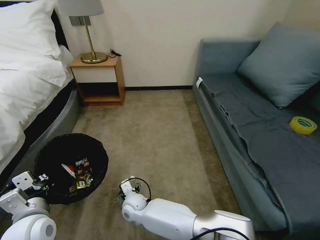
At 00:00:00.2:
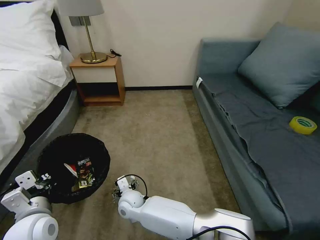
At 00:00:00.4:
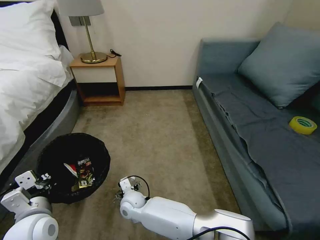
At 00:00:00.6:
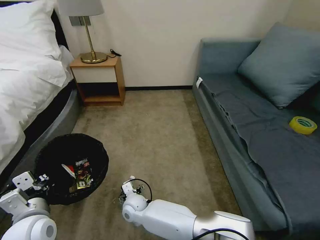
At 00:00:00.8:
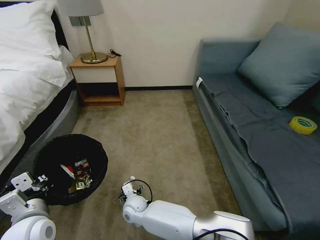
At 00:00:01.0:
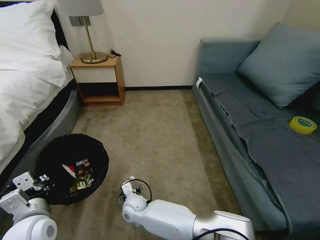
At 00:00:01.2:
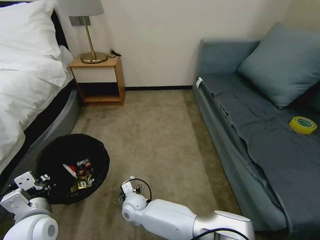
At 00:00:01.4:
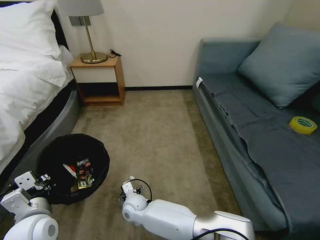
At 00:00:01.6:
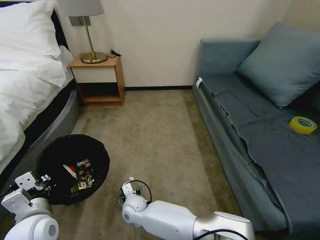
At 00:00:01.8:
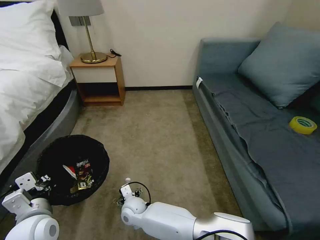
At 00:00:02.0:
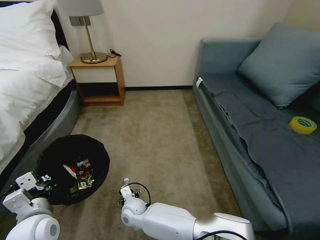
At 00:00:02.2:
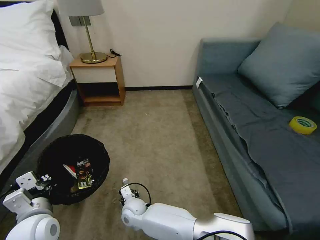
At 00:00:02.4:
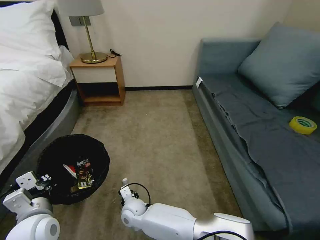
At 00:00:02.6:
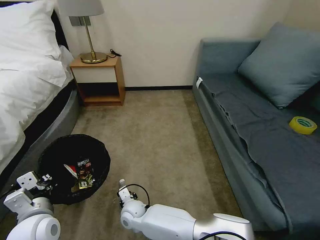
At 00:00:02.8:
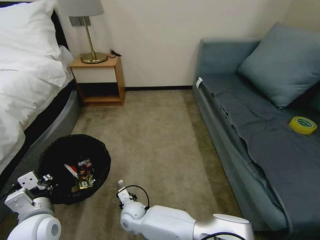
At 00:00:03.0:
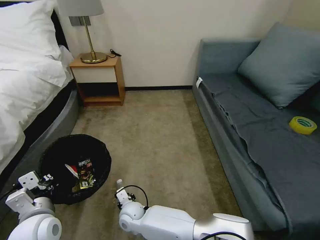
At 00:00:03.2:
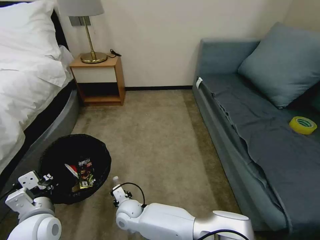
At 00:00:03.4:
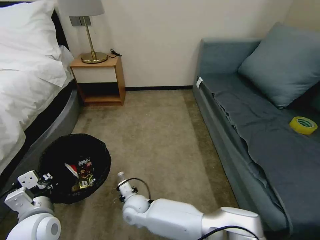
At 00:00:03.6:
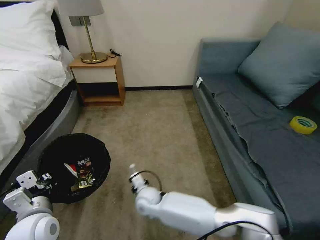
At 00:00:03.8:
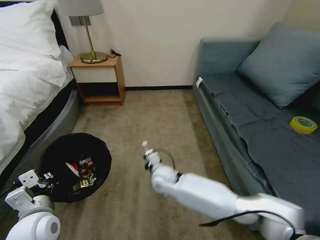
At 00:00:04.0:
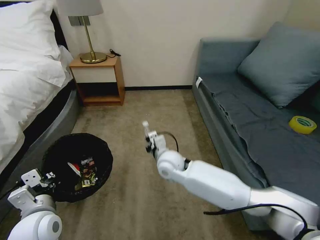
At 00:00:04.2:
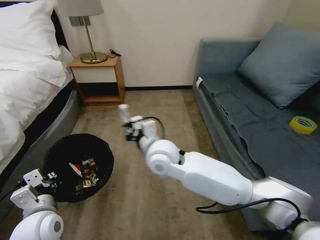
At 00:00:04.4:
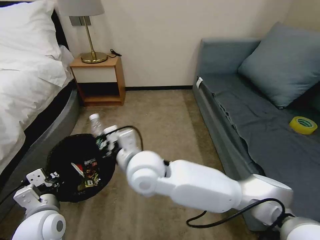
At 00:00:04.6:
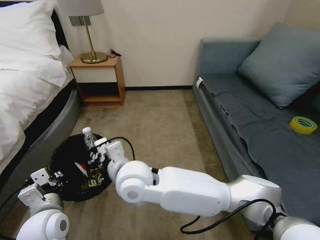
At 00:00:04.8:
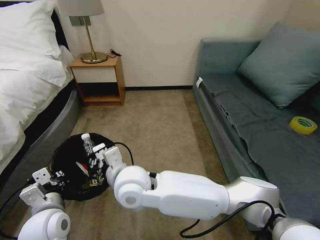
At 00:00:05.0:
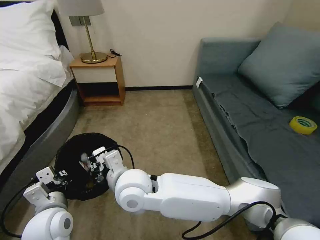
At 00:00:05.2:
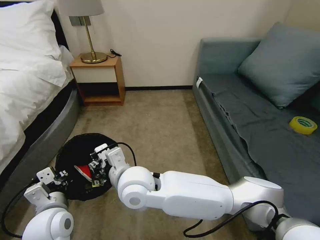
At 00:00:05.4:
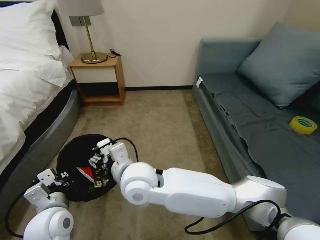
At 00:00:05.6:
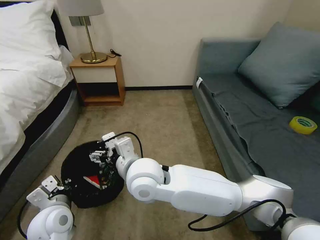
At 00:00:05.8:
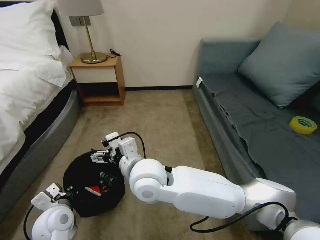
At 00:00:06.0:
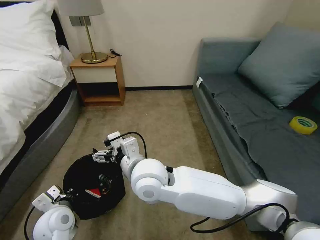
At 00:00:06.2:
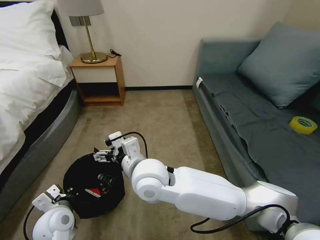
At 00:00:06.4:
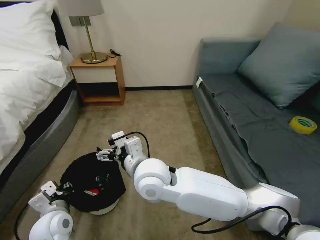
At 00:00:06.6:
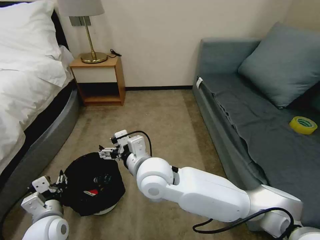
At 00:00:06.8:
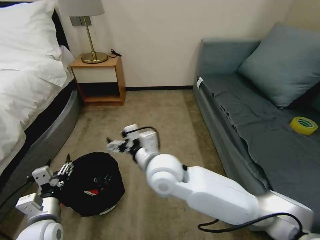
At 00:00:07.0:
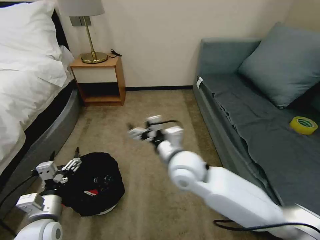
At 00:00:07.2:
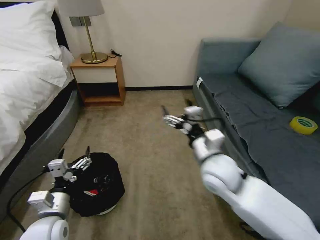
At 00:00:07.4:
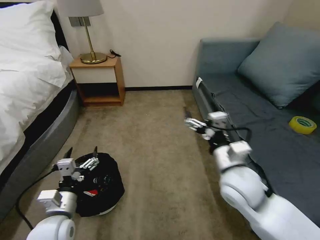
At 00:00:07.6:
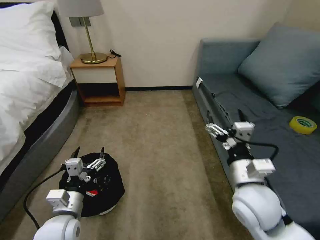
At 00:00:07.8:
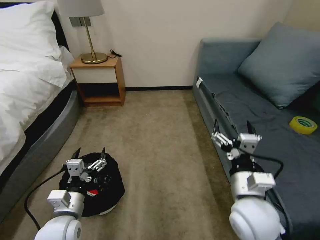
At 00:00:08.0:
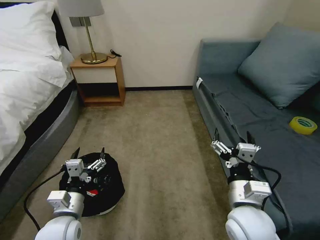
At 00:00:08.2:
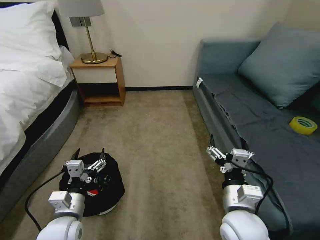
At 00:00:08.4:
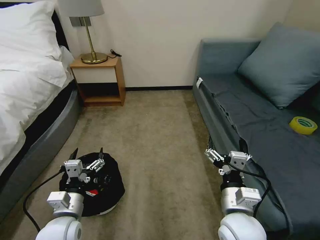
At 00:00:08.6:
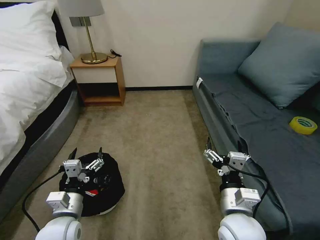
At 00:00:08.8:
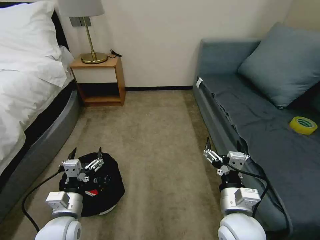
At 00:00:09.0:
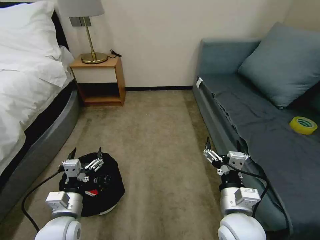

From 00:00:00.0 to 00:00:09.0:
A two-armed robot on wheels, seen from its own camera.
Task of the whole recording: Pick up the trash bin, then pick up the garbage on the floor and place it into the trash bin.
From 00:00:00.0 to 00:00:01.6: The grippers make only small movements.
From 00:00:01.6 to 00:00:03.0: The right gripper closes.
From 00:00:03.0 to 00:00:04.4: The right gripper is displaced upward by some 30 cm.
From 00:00:04.4 to 00:00:06.0: The right gripper opens its fingers; the left gripper is displaced downward by some 5 cm.
From 00:00:06.0 to 00:00:07.6: The right gripper heads to the right, covering approximately 25 cm; the left gripper changes place by some 5 cm, and opens up.
From 00:00:07.6 to 00:00:09.0: The right gripper shifts some 10 cm backward and downward.
